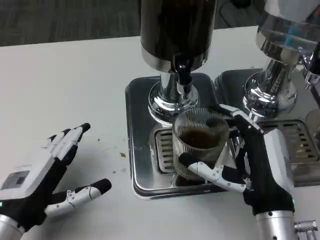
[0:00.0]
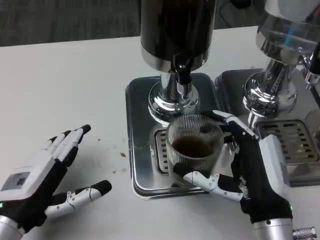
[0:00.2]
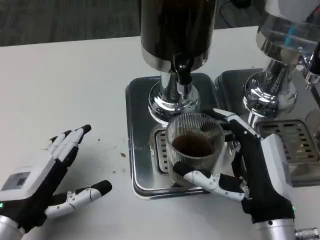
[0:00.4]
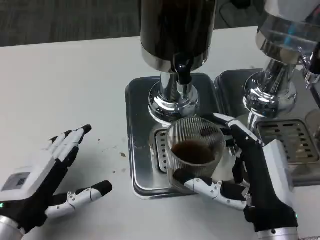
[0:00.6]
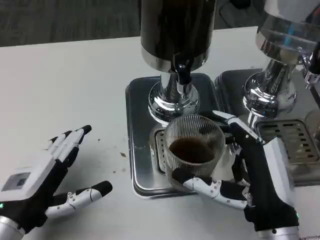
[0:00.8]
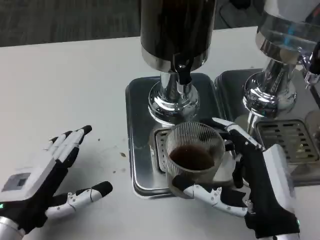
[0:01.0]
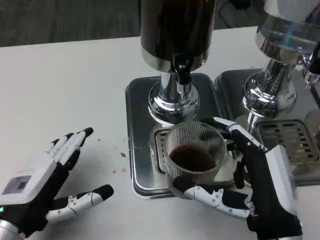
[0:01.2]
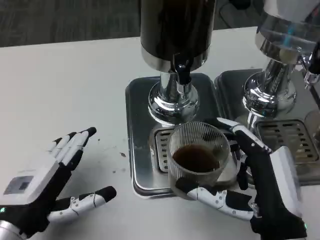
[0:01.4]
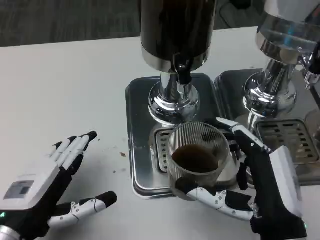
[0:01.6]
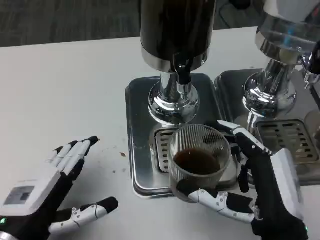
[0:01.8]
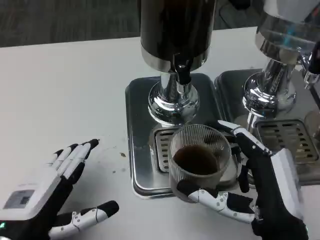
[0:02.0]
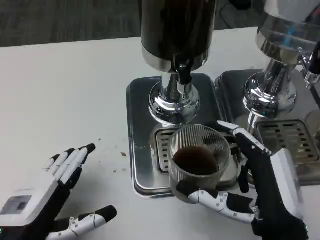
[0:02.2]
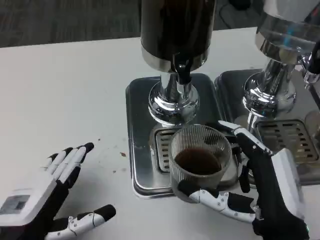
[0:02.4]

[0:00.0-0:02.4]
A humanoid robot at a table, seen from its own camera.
Task of the whole recording: Grasp the cup under the faucet to collect the drink, then remove the cup.
0:00.0 to 0:02.4: The hands make only small movements.

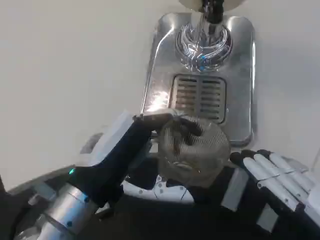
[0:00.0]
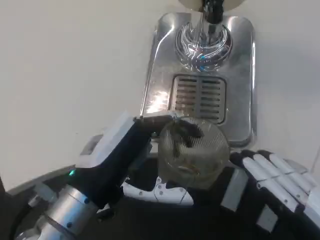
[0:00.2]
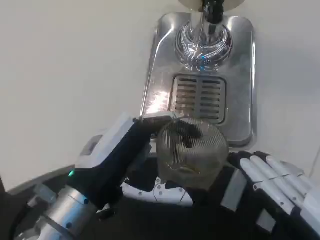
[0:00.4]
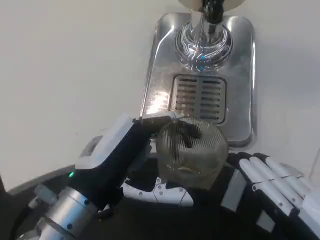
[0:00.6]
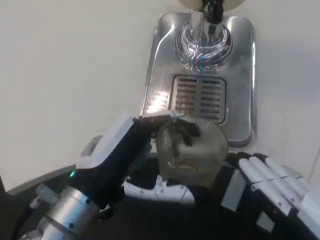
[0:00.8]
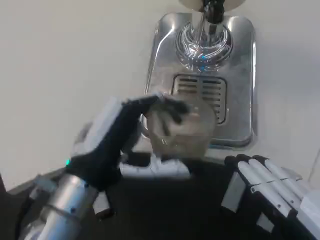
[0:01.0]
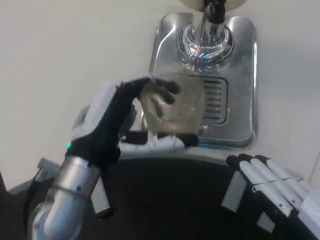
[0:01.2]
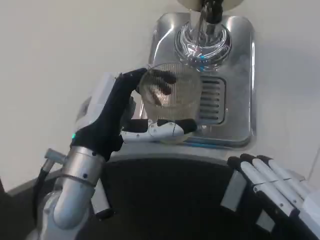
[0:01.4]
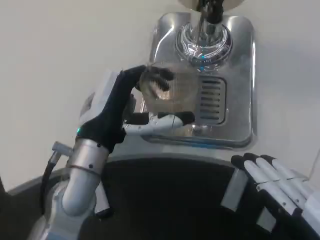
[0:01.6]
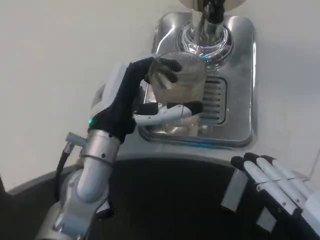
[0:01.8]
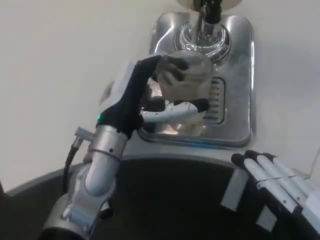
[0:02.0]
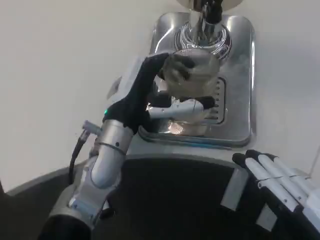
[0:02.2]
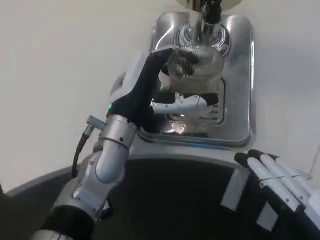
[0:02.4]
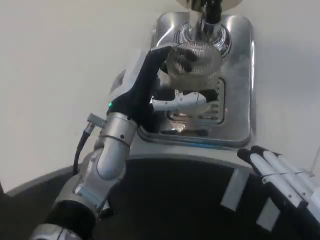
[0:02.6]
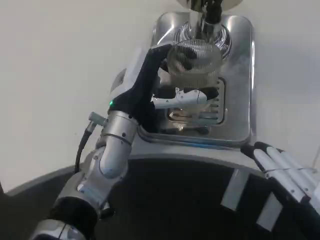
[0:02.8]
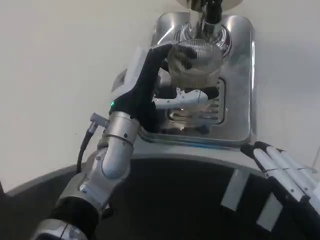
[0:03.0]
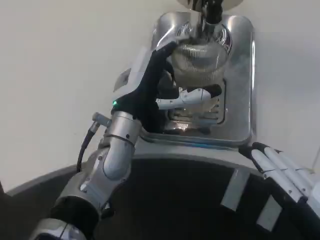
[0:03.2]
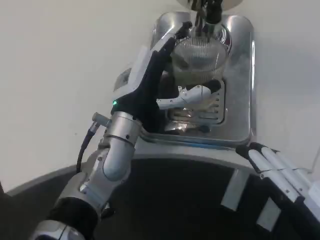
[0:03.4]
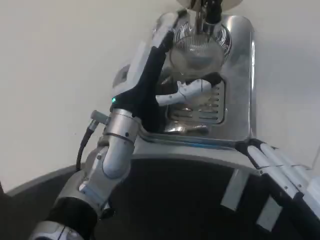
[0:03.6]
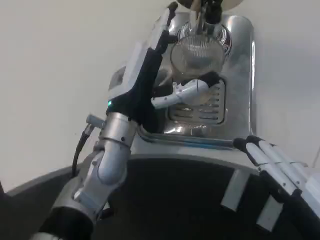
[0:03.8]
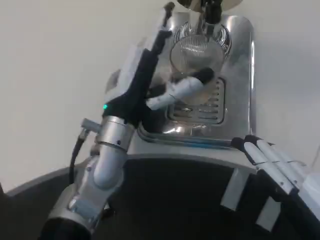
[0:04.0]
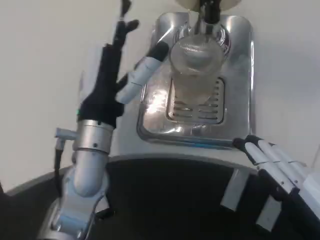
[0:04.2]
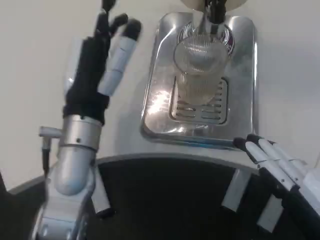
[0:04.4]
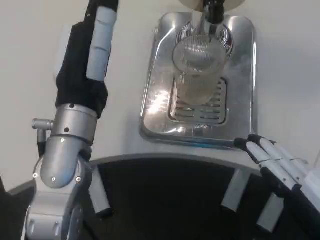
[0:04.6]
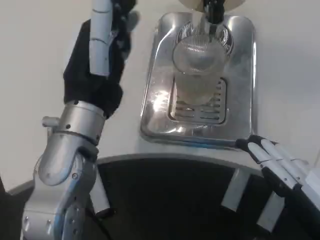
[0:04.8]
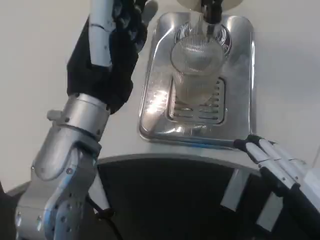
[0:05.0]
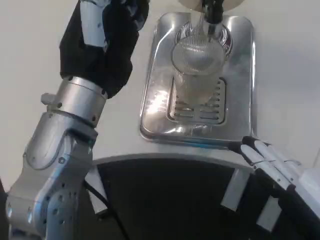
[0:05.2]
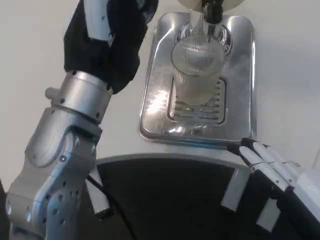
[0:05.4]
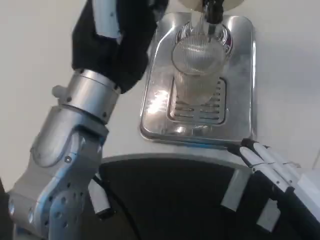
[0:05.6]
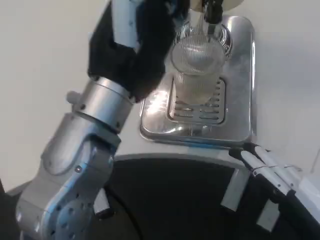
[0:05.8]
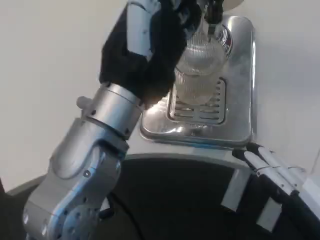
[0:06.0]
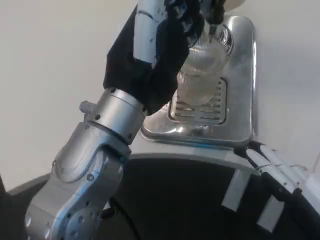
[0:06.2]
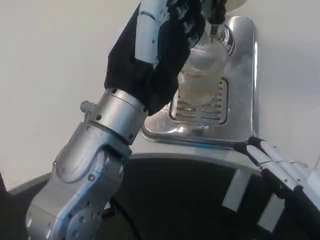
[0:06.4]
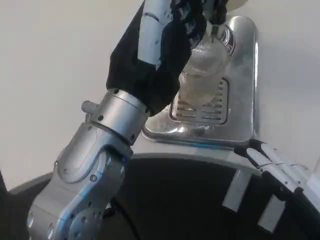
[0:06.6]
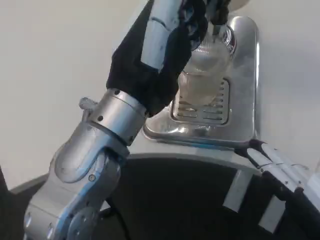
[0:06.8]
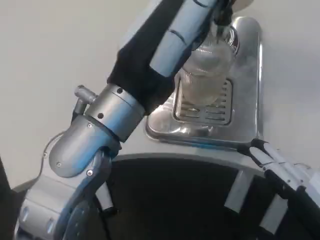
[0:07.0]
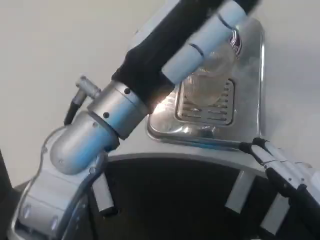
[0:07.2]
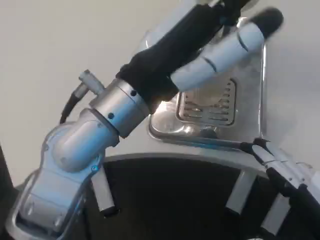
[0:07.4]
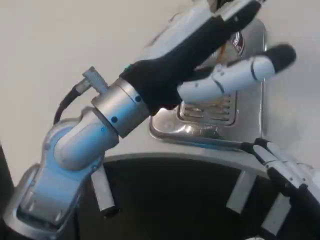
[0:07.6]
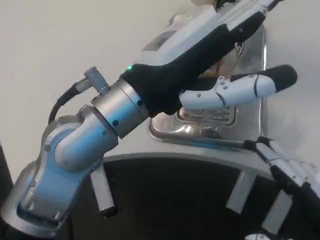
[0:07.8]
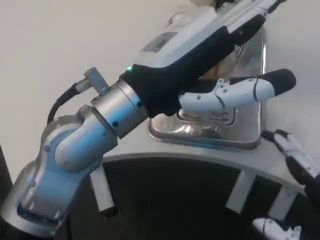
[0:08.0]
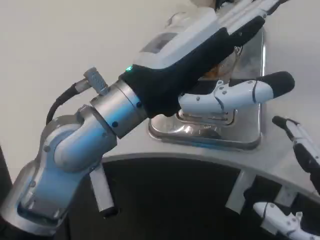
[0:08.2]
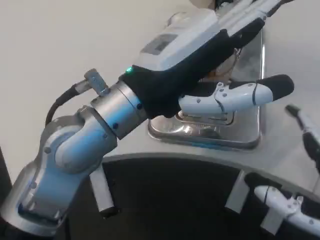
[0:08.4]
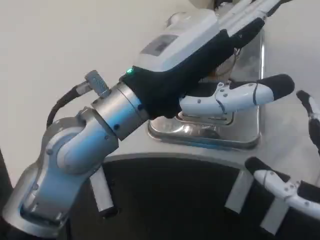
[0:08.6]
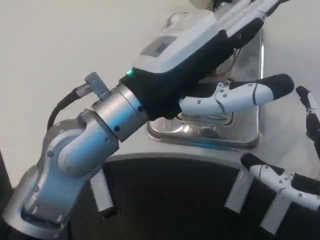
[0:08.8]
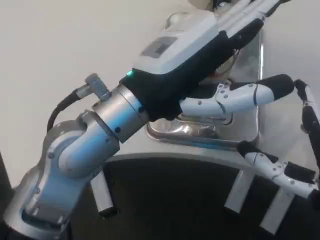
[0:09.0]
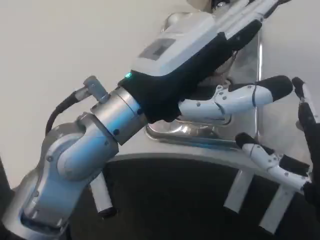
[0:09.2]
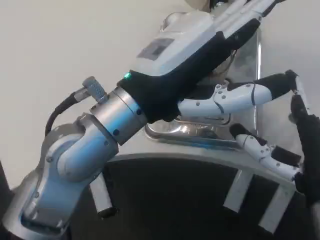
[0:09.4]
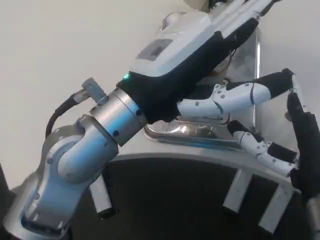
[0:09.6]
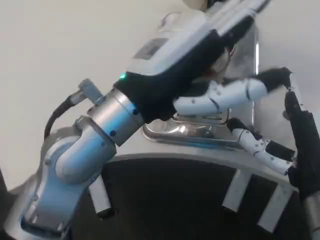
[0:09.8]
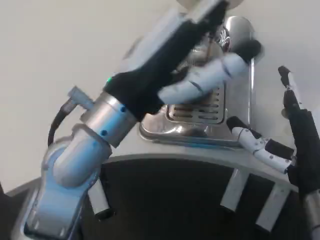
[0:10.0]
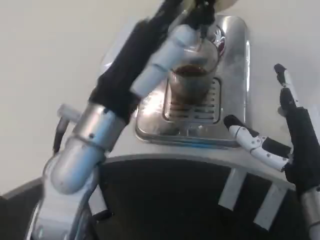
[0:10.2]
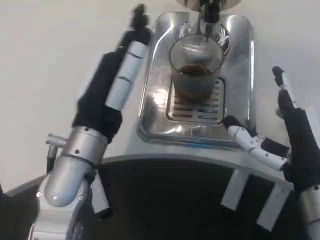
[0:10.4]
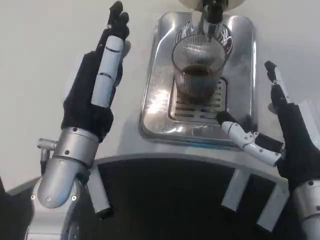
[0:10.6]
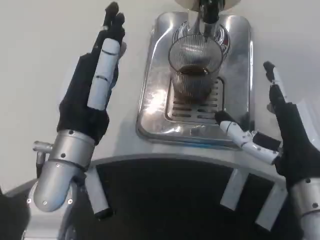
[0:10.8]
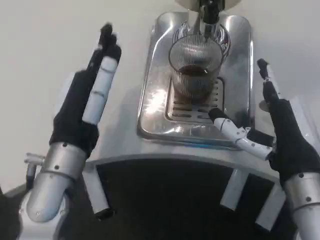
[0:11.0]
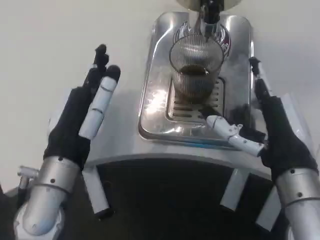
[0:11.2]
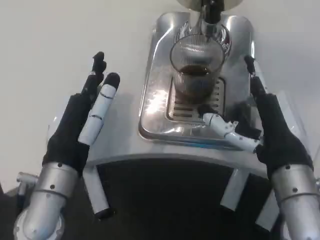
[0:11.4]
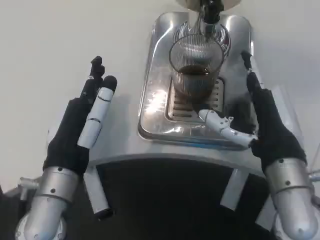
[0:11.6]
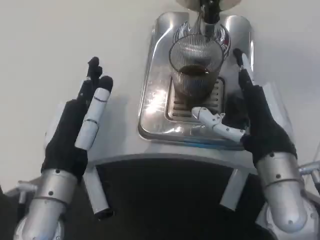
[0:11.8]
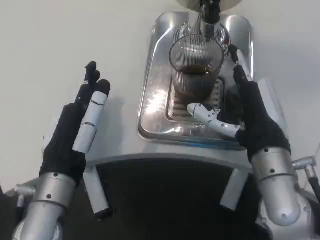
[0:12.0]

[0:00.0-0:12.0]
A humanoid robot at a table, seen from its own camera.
Task of the whole recording: Grasp the cup under the faucet to collect the drink, then remove the cup.
0:00.0 to 0:01.6: The left hand is displaced forward by approximately 10 cm.
0:01.6 to 0:03.0: The left hand heads forward, covering some 5 cm.
0:03.0 to 0:04.4: The left hand is displaced backward by some 5 cm.
0:04.4 to 0:06.0: The left hand is displaced upward by roughly 5 cm.
0:07.6 to 0:09.0: The right hand heads forward, covering roughly 5 cm.
0:09.0 to 0:10.4: The left hand goes some 10 cm downward.
0:10.4 to 0:12.0: The right hand heads forward, covering some 5 cm, while the left hand shifts by about 5 cm.

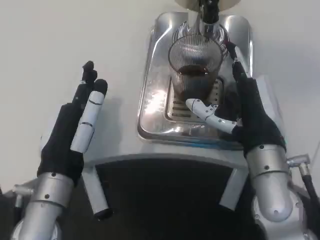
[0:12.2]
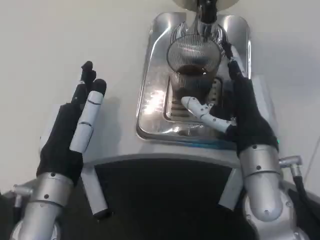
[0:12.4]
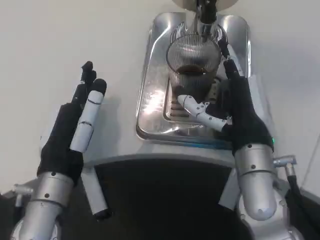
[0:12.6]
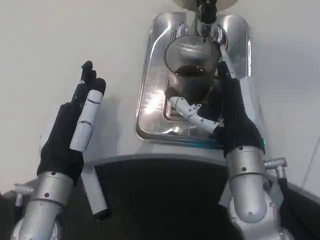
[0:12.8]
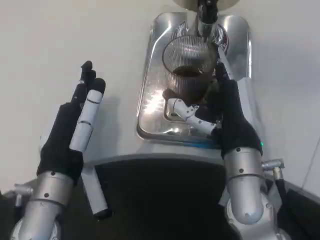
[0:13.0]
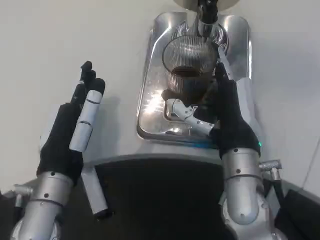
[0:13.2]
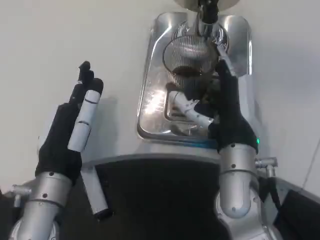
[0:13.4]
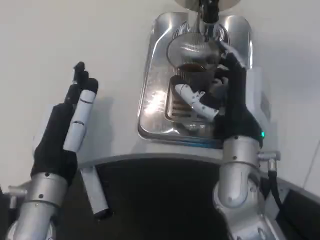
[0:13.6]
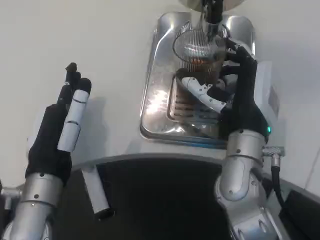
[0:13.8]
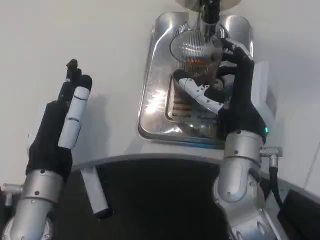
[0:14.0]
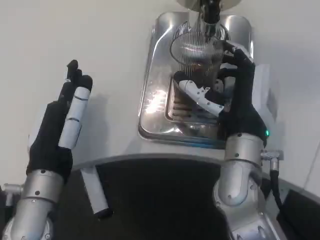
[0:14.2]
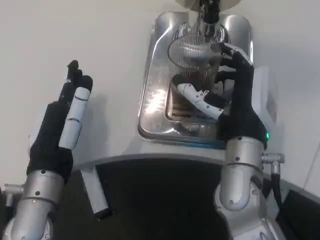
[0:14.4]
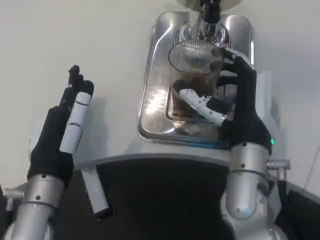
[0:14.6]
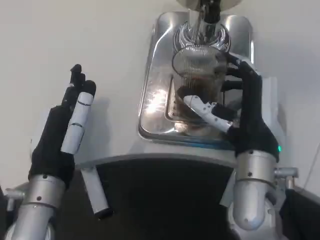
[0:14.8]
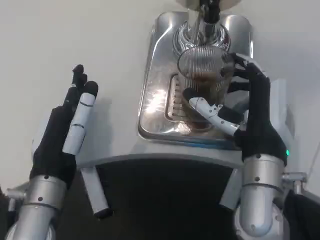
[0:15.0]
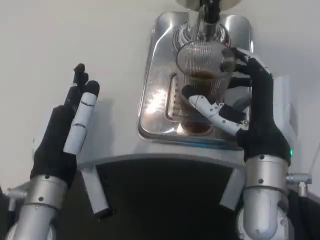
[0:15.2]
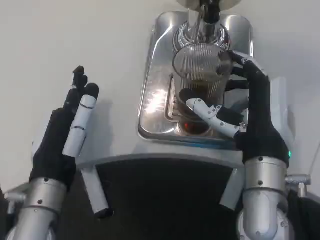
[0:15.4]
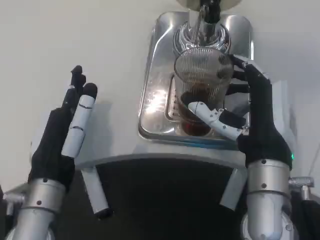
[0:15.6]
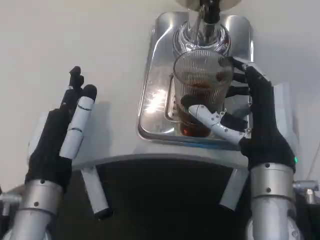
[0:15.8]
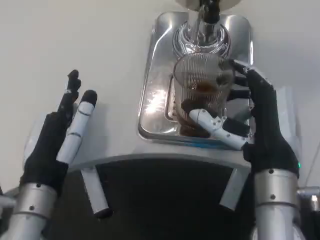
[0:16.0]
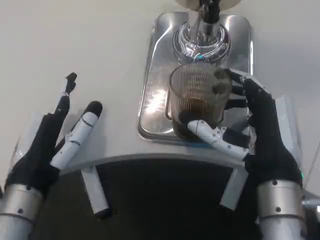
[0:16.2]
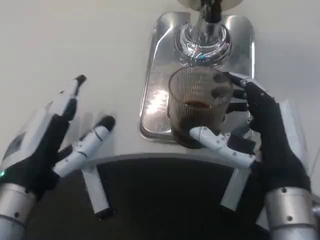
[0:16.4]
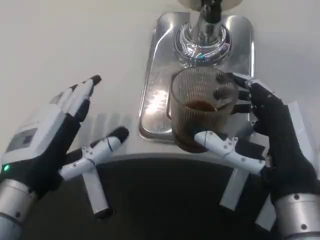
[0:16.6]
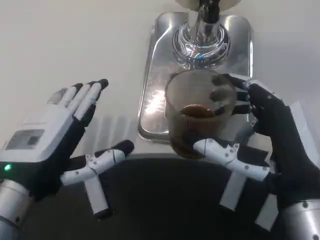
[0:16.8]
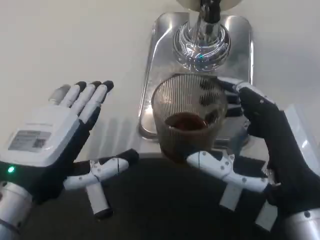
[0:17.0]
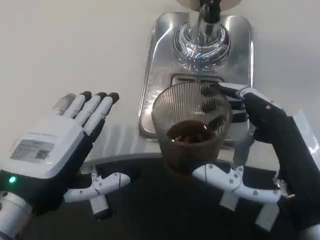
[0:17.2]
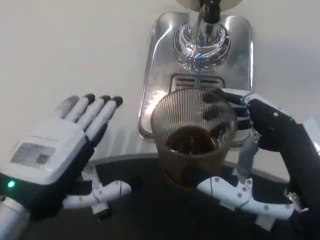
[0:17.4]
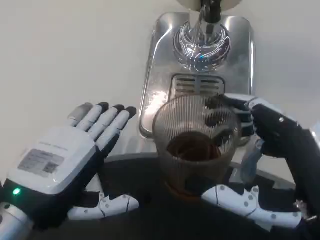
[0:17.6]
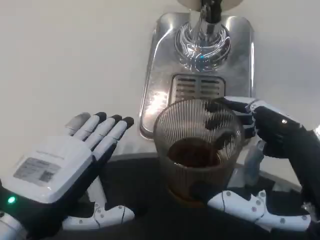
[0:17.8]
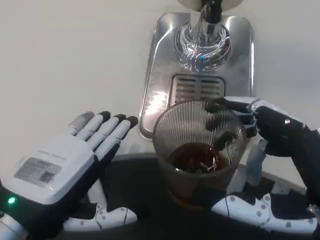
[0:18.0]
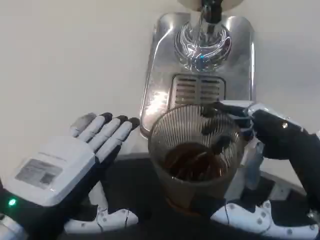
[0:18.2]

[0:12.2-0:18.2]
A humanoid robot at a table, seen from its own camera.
Task of the whole recording: Grasp the cup under the faucet to collect the drink, then remove the cup.
0:13.8 to 0:15.2: The right hand is displaced backward by roughly 5 cm.
0:15.2 to 0:16.6: The left hand shifts by approximately 5 cm, while the right hand goes some 5 cm backward.
0:16.6 to 0:18.2: The right hand shifts about 5 cm backward. Meanwhile the left hand shifts by approximately 5 cm.

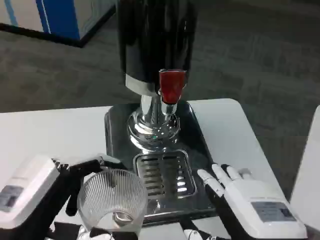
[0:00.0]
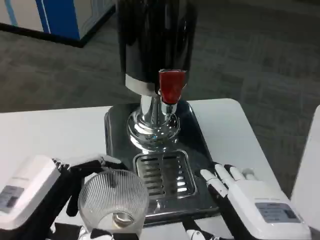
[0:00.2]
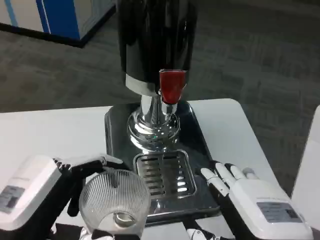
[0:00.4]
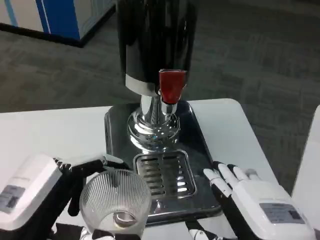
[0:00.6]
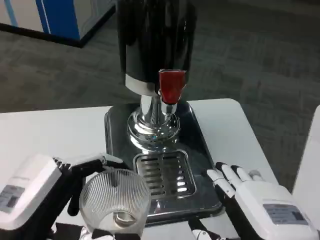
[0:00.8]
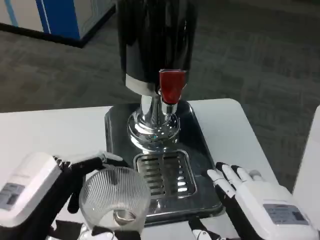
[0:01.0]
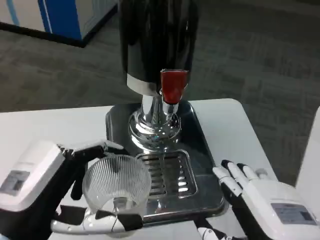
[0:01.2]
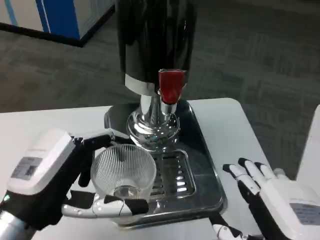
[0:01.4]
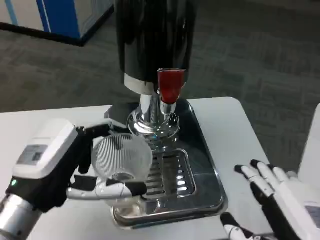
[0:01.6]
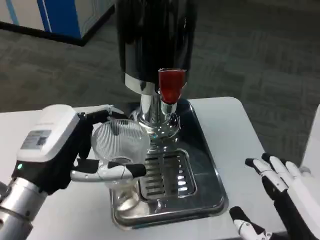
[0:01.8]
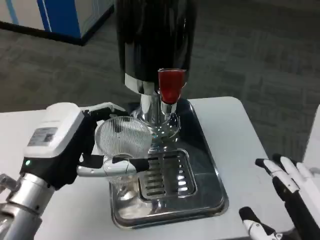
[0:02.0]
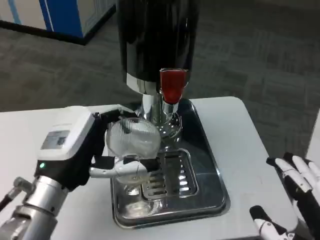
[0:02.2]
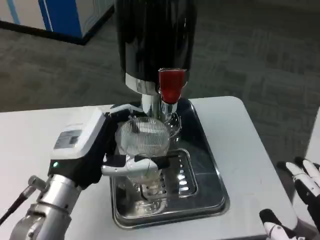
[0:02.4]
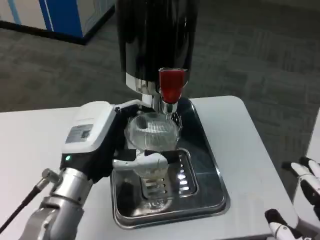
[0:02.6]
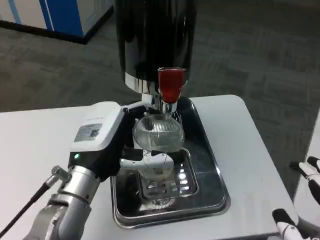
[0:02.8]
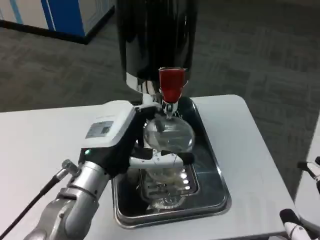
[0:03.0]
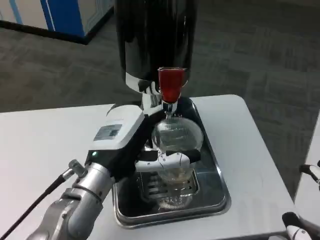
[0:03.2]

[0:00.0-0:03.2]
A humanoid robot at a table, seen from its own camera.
Task of the whole recording: Grasp the cup under the faucet to collect the drink, then remove the cup.
0:00.0 to 0:01.6: The left hand heads forward, covering roughly 5 cm.
0:01.6 to 0:03.2: The left hand is displaced to the right and forward by some 10 cm. The right hand shifts by approximately 5 cm.
